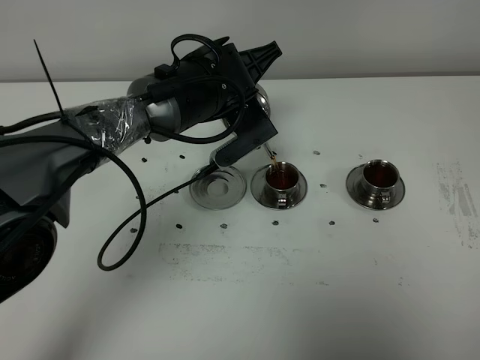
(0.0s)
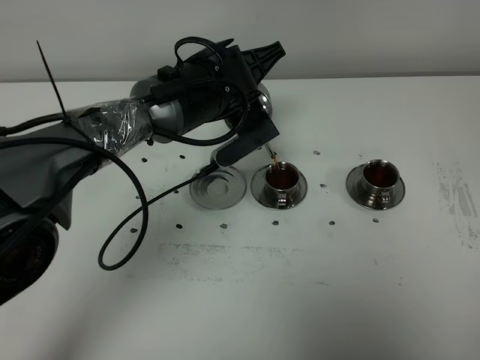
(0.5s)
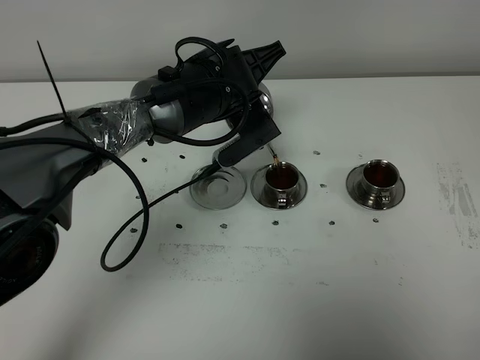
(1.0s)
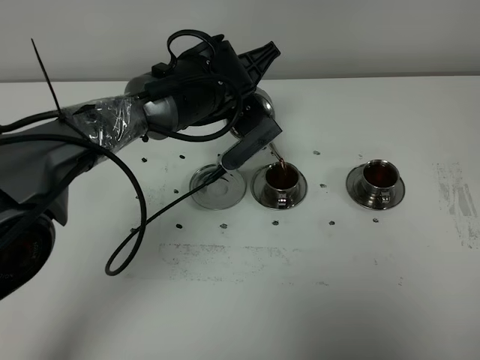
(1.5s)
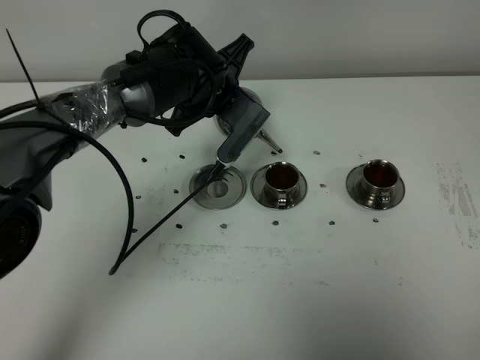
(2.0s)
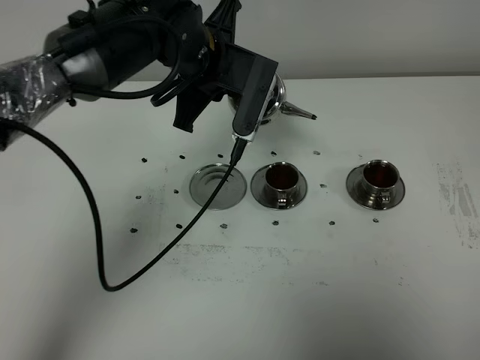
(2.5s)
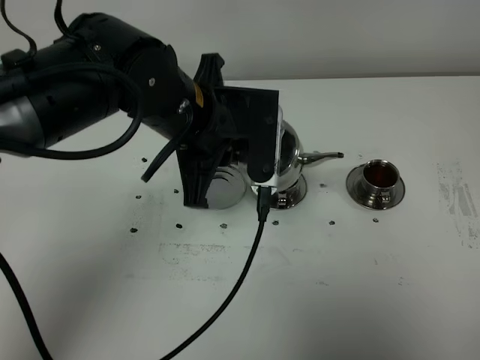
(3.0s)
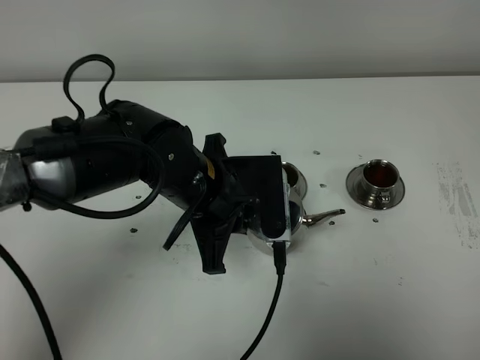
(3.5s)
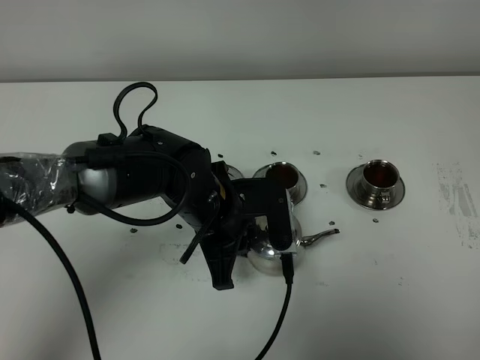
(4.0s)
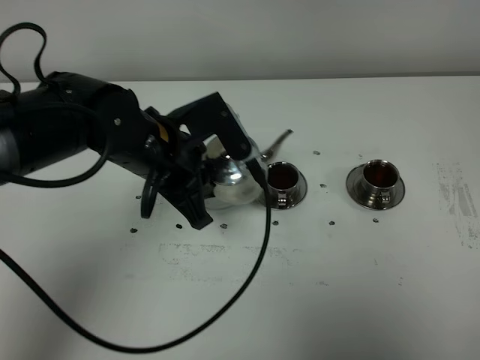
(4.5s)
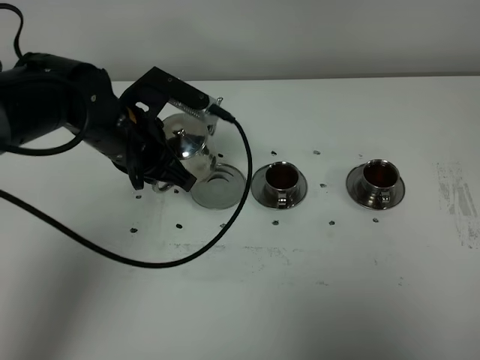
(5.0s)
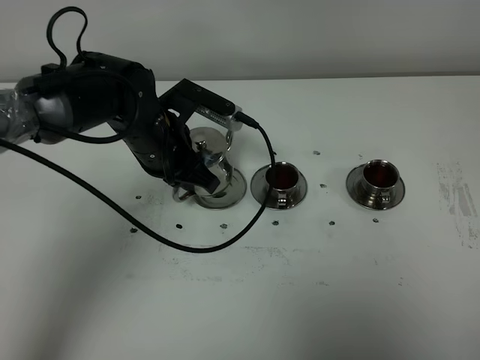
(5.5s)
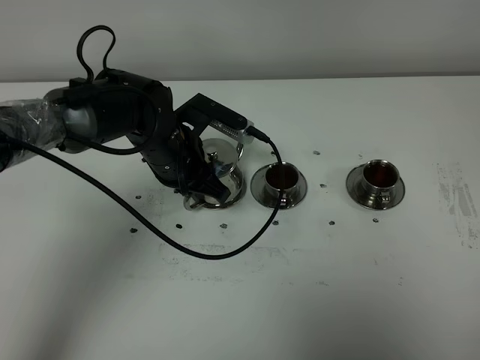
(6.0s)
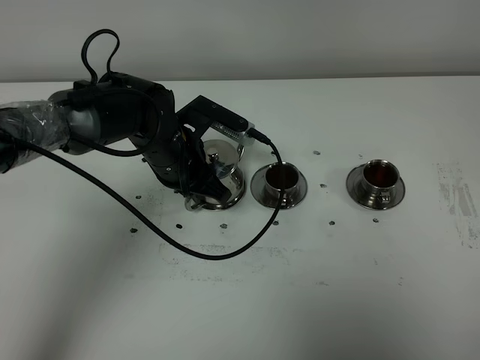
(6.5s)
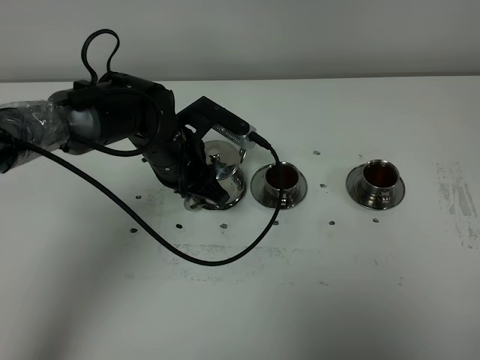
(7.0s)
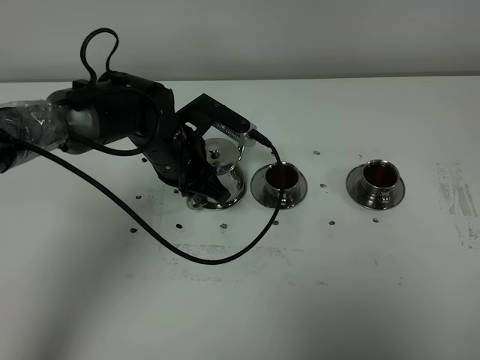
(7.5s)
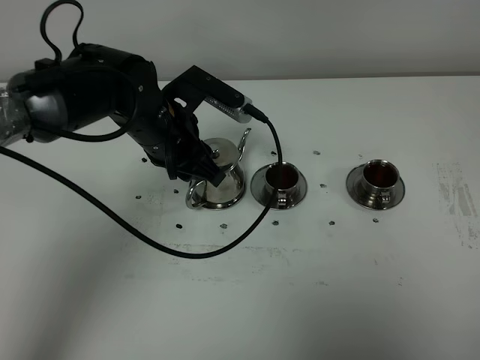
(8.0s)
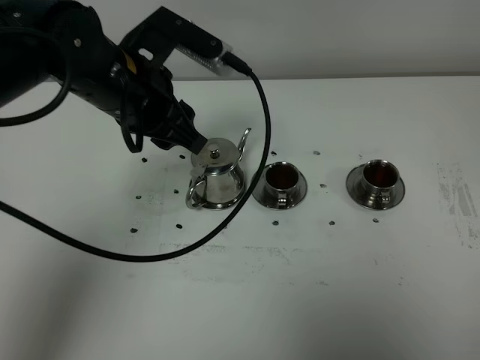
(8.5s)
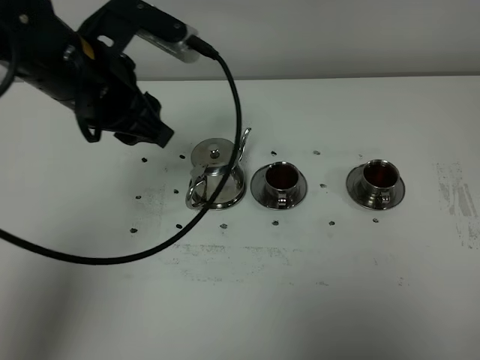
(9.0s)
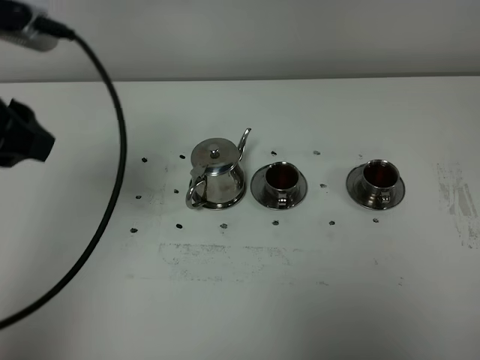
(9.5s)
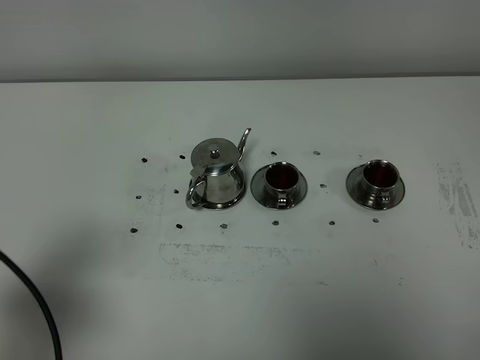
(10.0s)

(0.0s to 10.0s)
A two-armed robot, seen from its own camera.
Task of the whole recording: grasp the stainless steel teapot and pour the tea into the two stainless steel teacups one by one, put the stainless steel teapot back in its original place.
2.0s - 4.0s: The left gripper heads backward, covering some 15 cm.
4.0s - 6.0s: The left gripper goes some 10 cm forward and to the left.
6.0s - 8.0s: The left gripper is displaced upward by approximately 5 cm, and opens its fingers.
8.0s - 10.0s: The left gripper travels backward and to the left by about 35 cm.

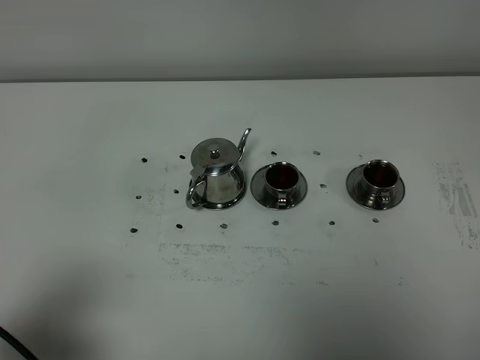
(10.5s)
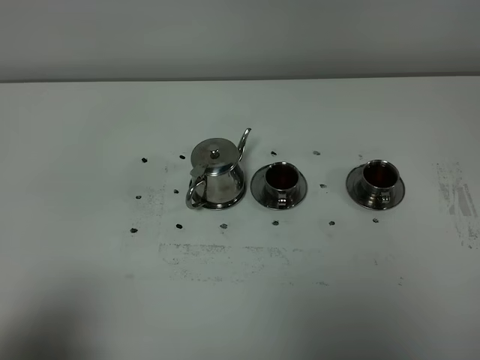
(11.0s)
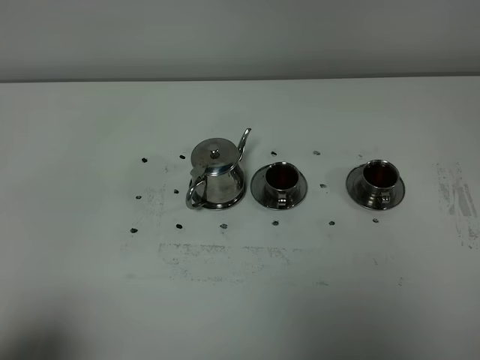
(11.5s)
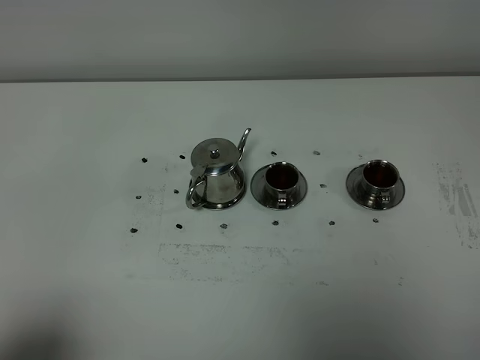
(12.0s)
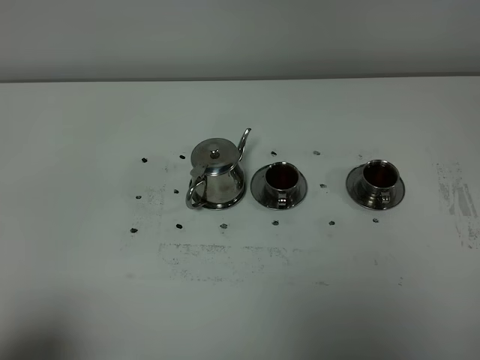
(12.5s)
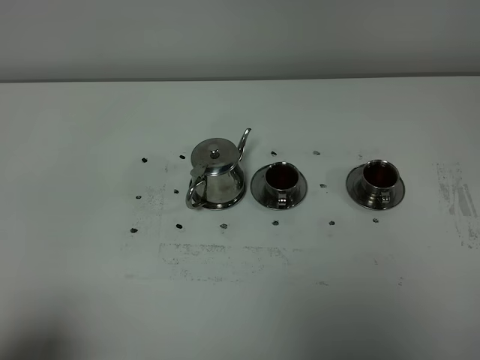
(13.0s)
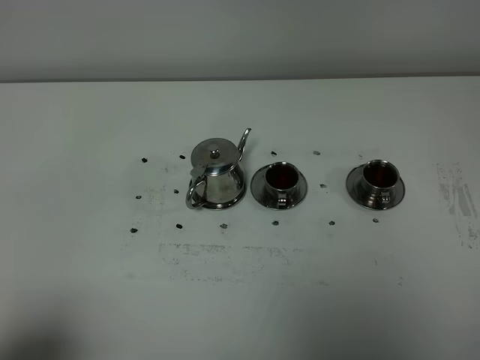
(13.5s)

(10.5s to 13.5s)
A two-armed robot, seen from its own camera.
Task of the whole recording: grasp the stainless steel teapot and pour the tea into the two stainless steel teacups one by one, put the stainless steel teapot back in its original place.
10.5s - 12.0s: The left gripper moves backward, some 5 cm.
12.0s - 13.5s: Both grippers stay about where they are.
